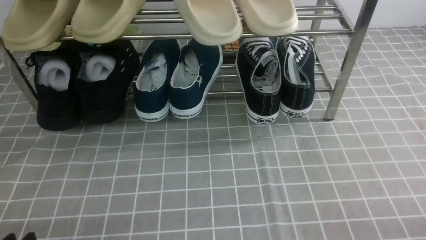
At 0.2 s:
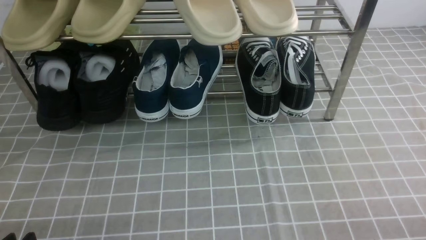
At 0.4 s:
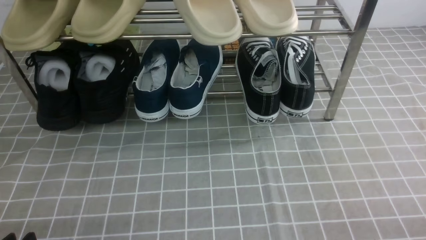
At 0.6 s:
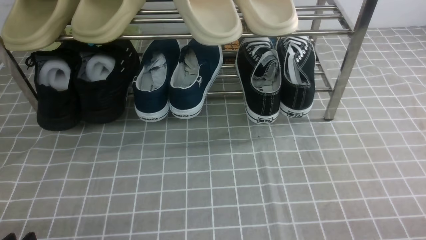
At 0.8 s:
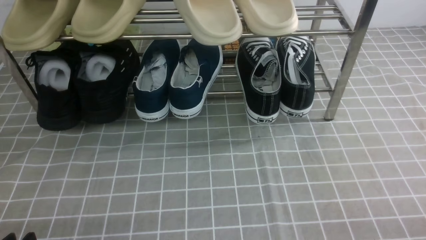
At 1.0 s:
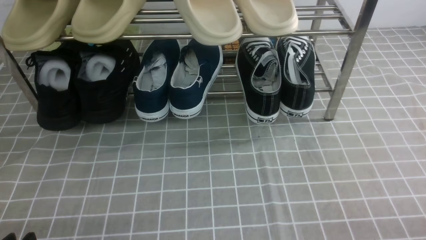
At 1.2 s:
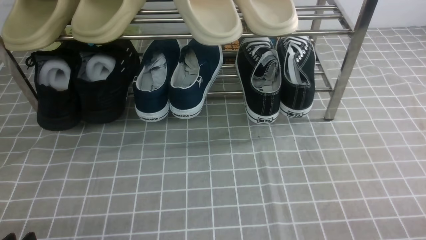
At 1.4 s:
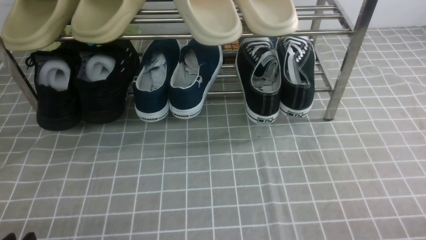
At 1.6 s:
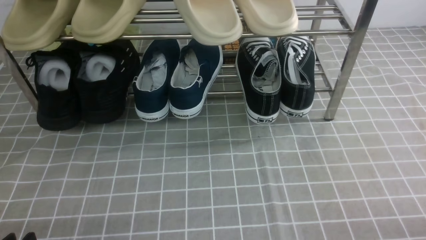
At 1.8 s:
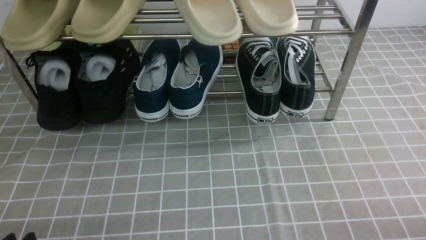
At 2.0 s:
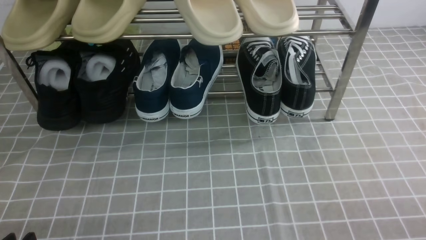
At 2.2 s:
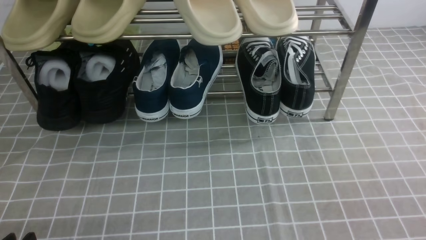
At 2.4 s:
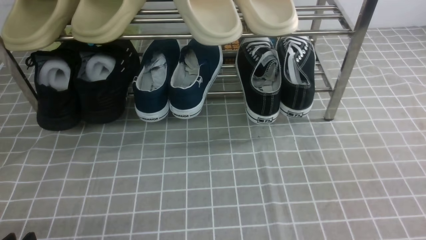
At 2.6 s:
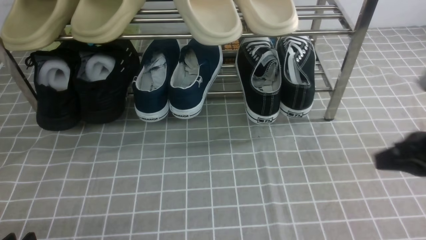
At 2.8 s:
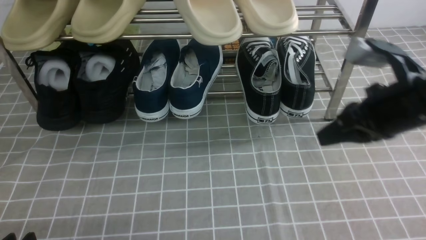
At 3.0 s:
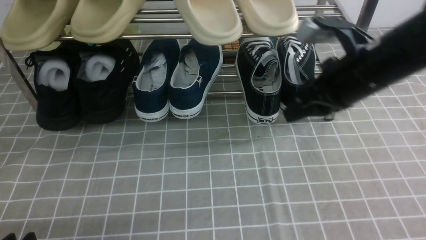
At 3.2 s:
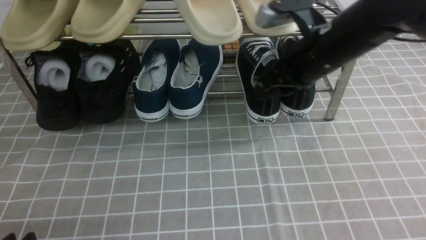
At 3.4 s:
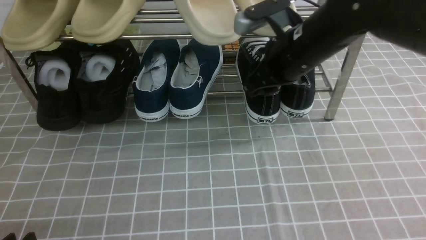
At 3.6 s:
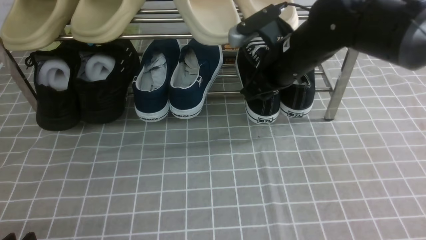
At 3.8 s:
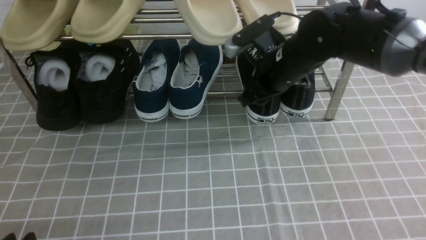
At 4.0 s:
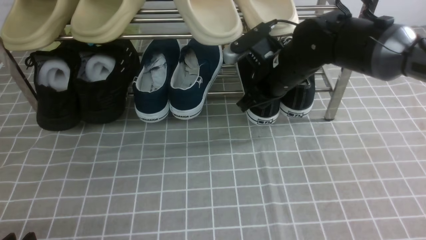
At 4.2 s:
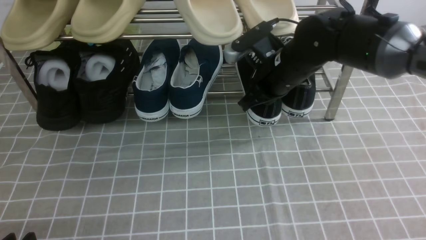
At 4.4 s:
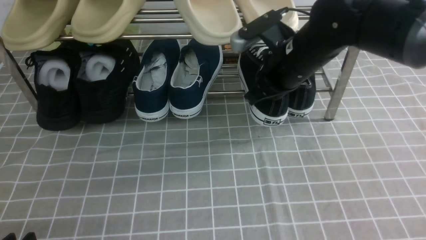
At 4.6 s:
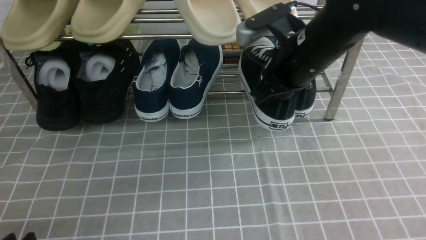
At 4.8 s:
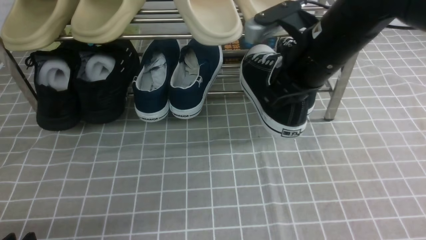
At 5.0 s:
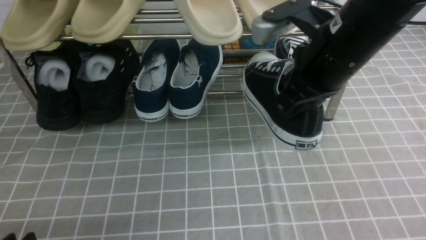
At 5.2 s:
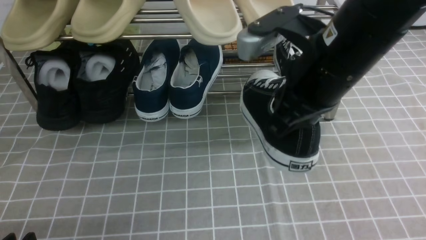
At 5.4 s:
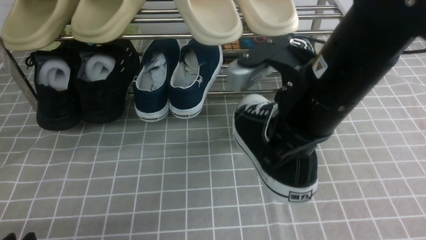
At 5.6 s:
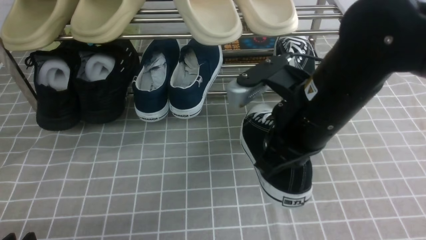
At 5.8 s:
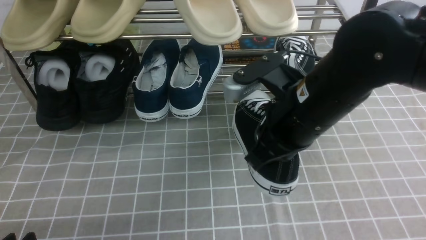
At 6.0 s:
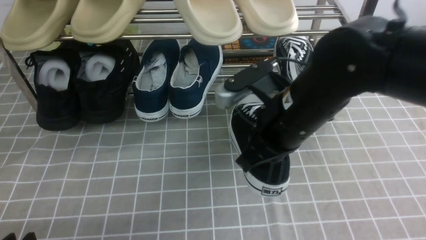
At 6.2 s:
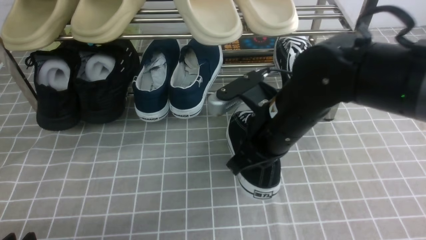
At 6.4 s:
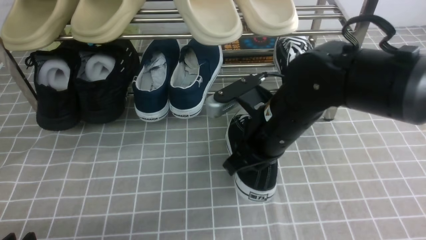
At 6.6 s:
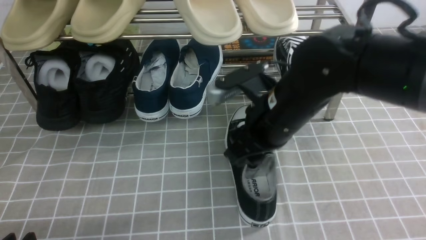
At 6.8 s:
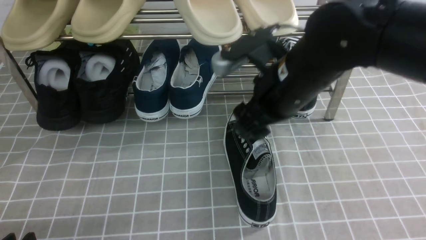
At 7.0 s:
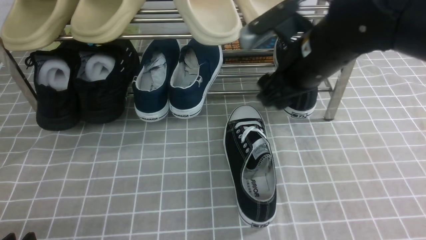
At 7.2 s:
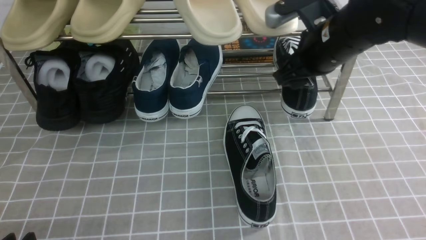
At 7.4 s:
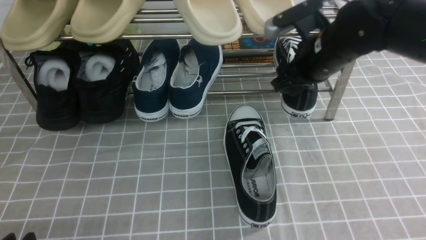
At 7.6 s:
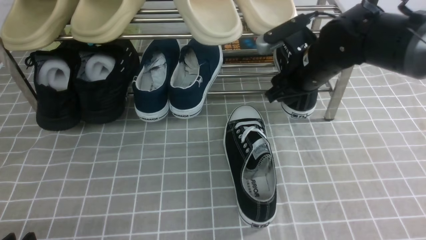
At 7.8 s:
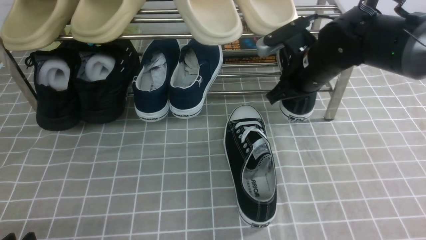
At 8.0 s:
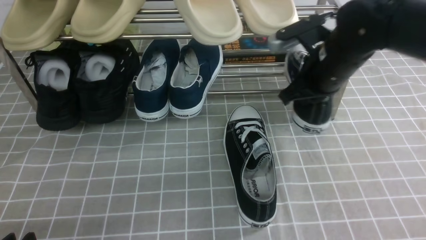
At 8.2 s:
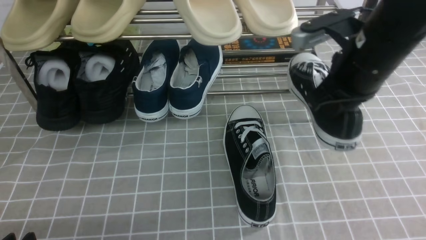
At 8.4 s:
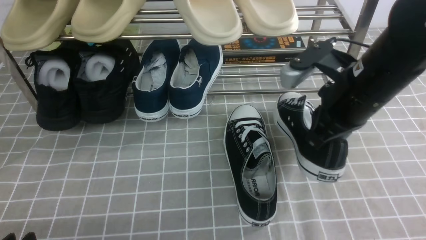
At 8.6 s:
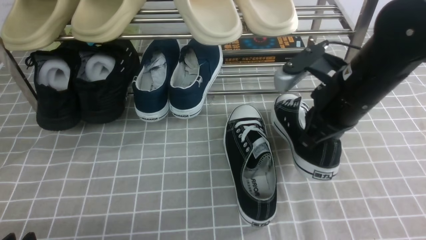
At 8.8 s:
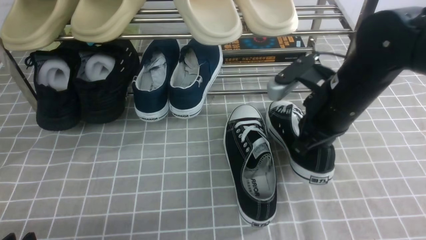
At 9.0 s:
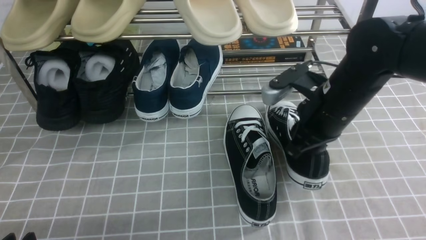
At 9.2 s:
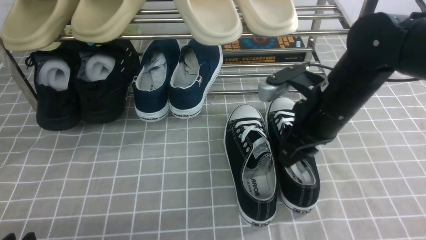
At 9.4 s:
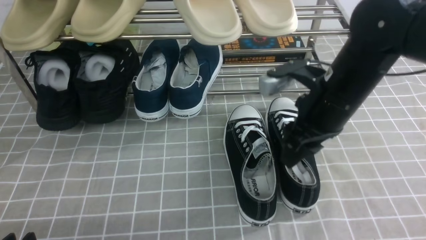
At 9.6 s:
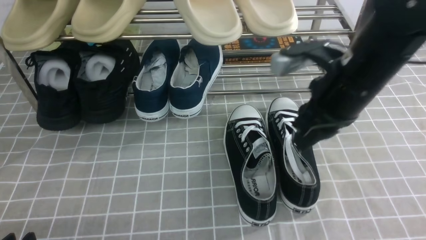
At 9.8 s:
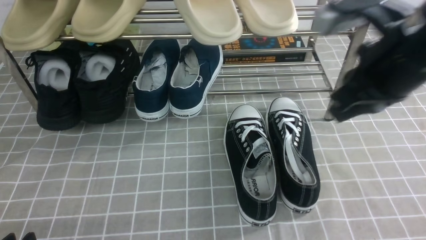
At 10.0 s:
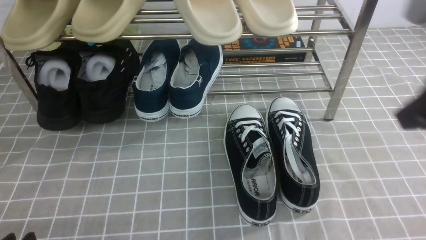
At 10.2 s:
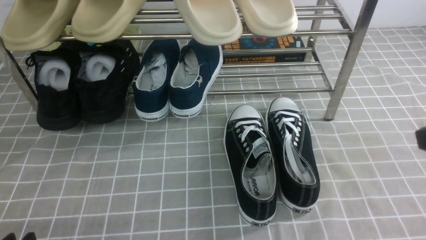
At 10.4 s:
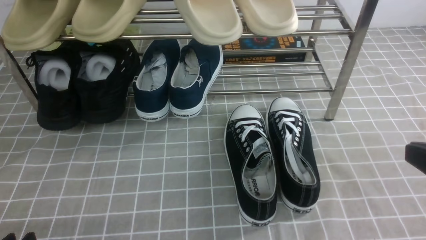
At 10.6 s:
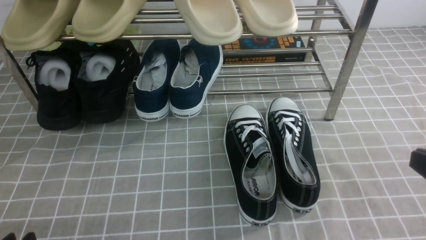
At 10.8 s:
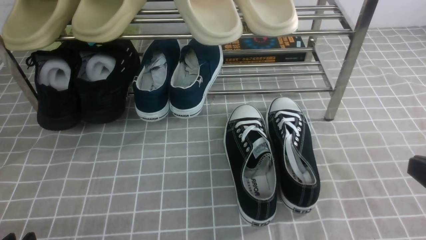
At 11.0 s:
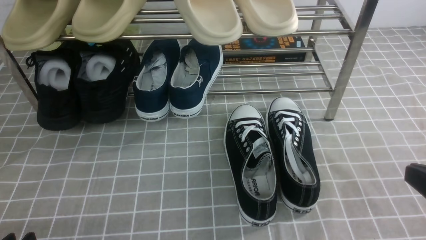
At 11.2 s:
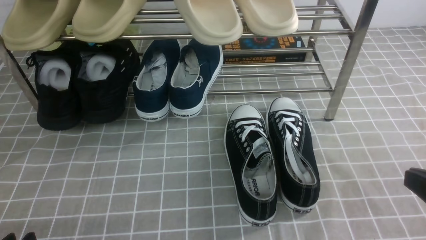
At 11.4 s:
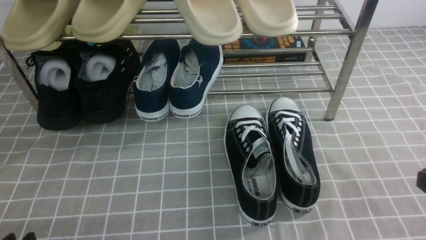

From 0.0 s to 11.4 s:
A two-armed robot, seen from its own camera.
Step, from 0.0 s to 4.2 s: use the right arm to clamp a shoe on the right side of the shoe rack.
Step, from 4.4 s to 6.6 s: use the right arm to take out the clamped shoe from the shoe rack and put it down.
Step, from 6.8 s to 8.0 s: use the right arm to clamp a shoe on the right side of the shoe rack.
Step, from 8.2 s to 9.4 s: use the right arm to take out the clamped shoe from the shoe rack and put it down.
From 1.4 s to 2.8 s: The right gripper goes approximately 25 cm forward, upward and to the left.
From 2.8 s to 4.2 s: The right gripper is displaced forward and to the left by approximately 15 cm, and opens and closes again.
From 4.2 s to 5.6 s: The right gripper goes about 15 cm backward.
From 5.6 s to 7.2 s: The right gripper travels forward by roughly 10 cm, and opens.
From 7.2 s to 8.6 s: The right gripper travels backward by about 5 cm, and closes.
From 8.6 s to 10.0 s: The right gripper shifts some 15 cm backward, upward and to the right, and opens, then closes once more.
From 10.0 s to 11.4 s: The right gripper shifts roughly 15 cm downward, backward and to the right.

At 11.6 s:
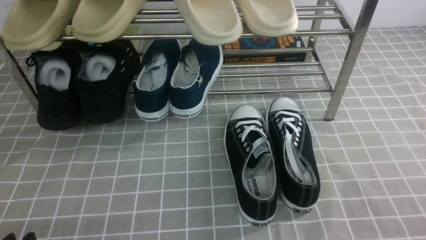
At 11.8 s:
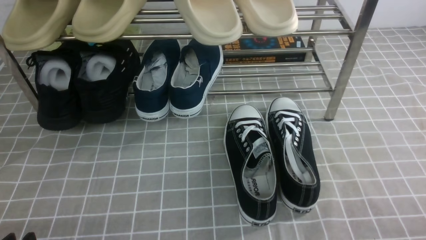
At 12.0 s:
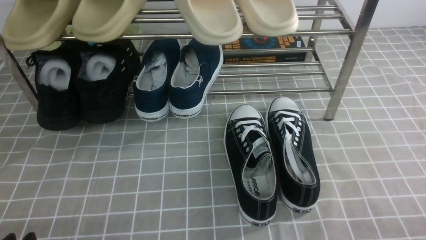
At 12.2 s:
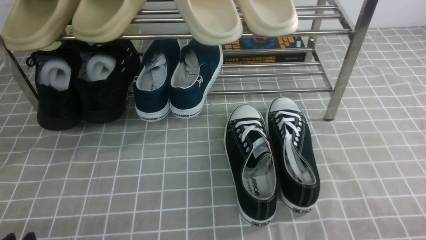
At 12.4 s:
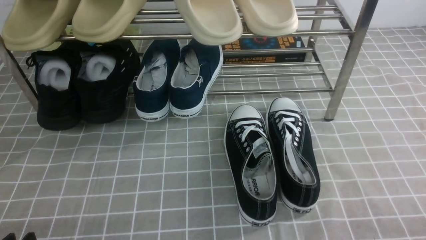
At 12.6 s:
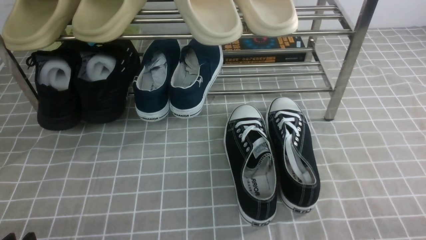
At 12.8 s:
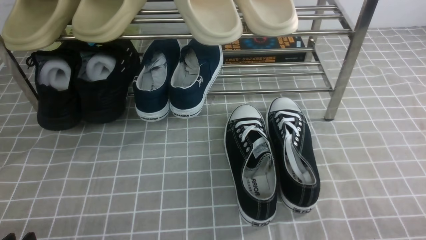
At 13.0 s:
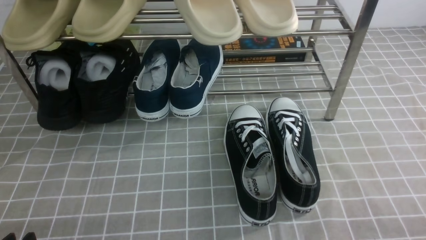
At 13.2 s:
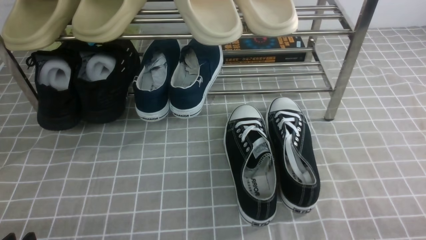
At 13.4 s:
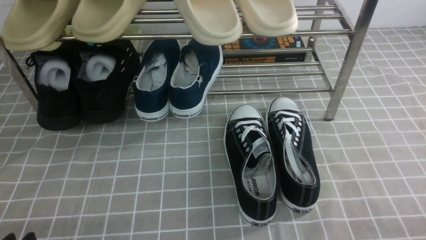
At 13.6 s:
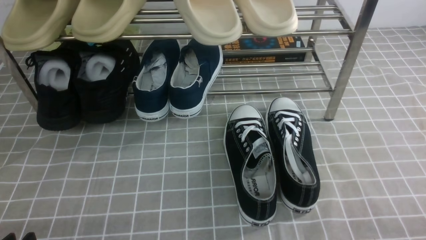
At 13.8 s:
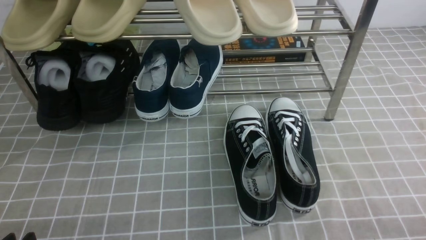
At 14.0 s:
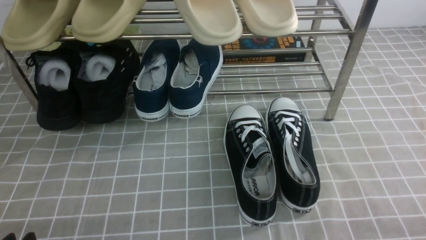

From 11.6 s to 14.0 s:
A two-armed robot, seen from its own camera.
From 12.8 s to 14.0 s: The two grippers keep their place.
